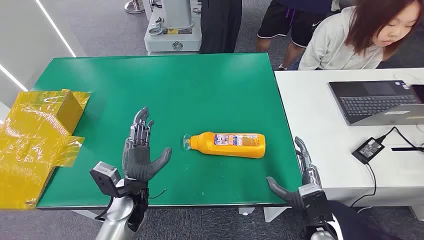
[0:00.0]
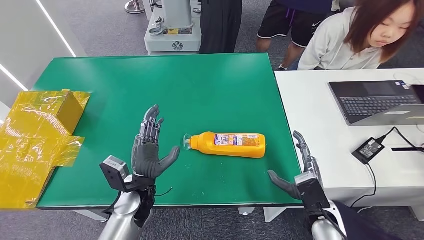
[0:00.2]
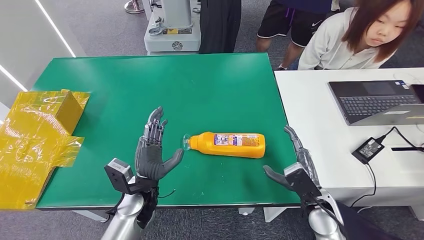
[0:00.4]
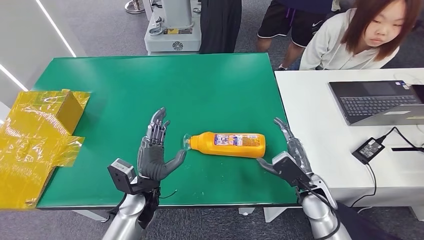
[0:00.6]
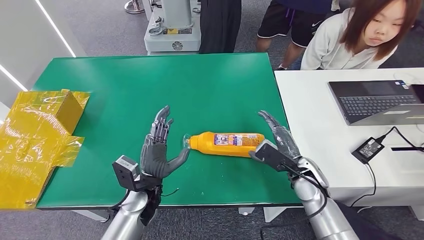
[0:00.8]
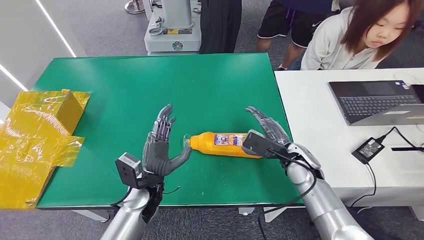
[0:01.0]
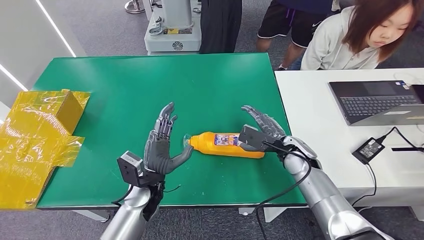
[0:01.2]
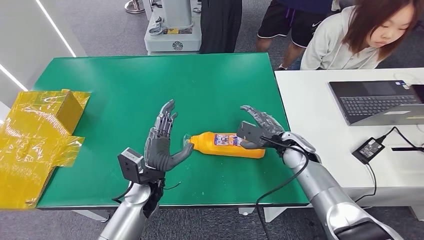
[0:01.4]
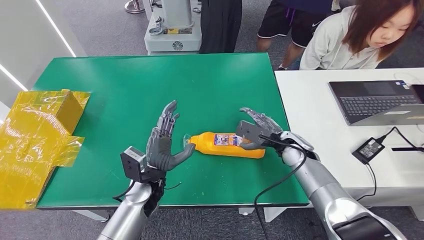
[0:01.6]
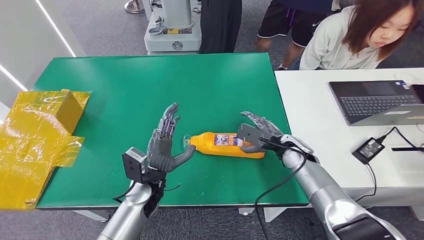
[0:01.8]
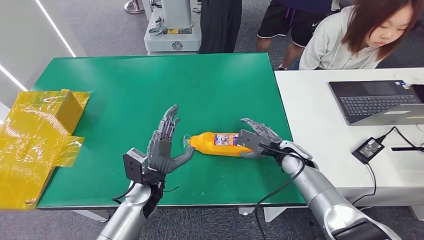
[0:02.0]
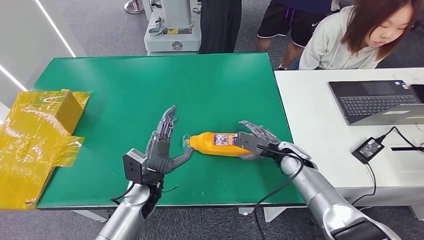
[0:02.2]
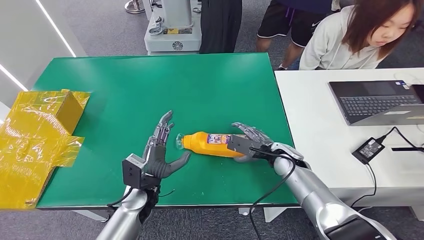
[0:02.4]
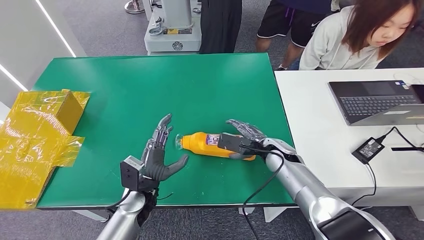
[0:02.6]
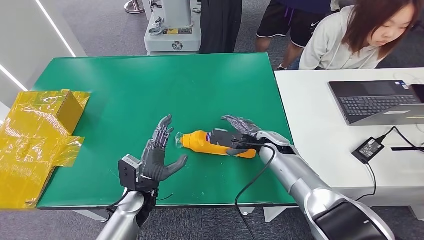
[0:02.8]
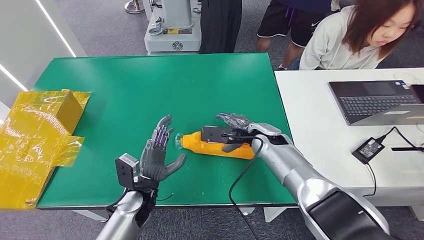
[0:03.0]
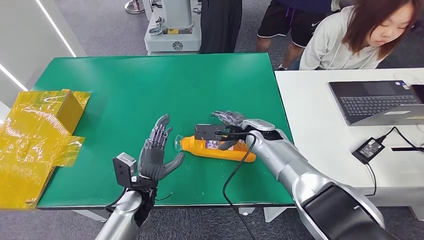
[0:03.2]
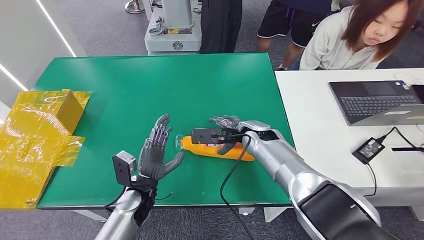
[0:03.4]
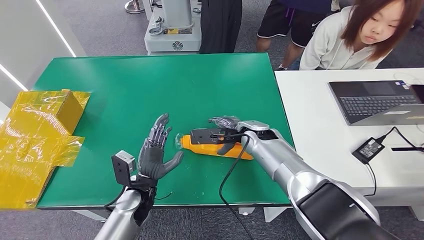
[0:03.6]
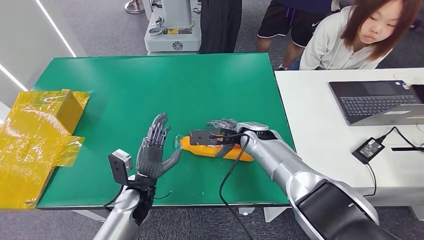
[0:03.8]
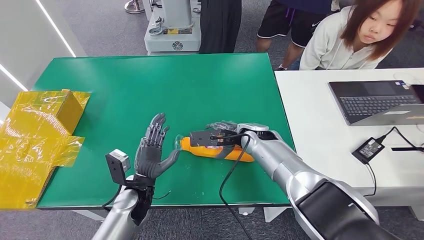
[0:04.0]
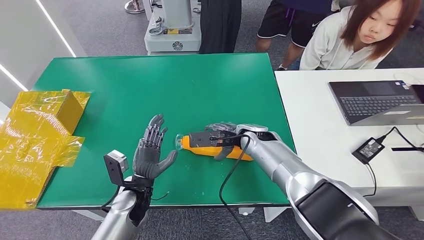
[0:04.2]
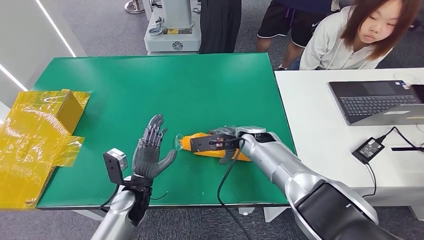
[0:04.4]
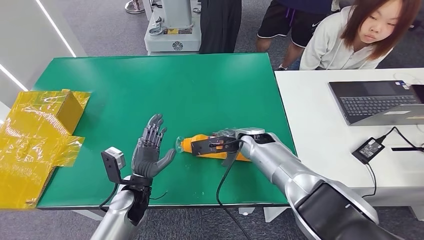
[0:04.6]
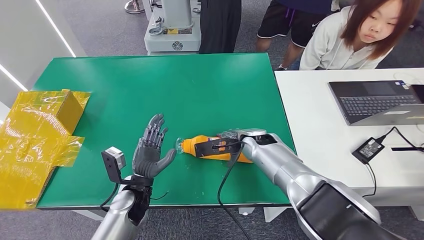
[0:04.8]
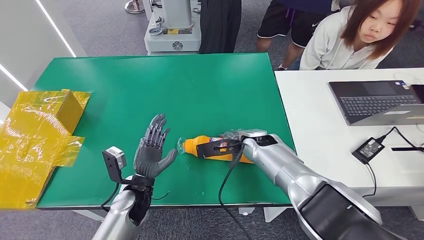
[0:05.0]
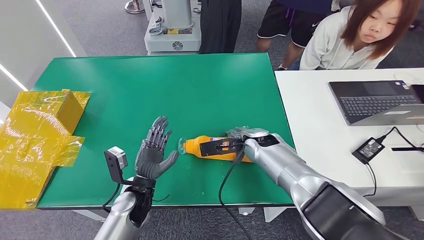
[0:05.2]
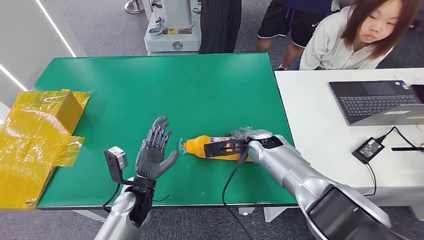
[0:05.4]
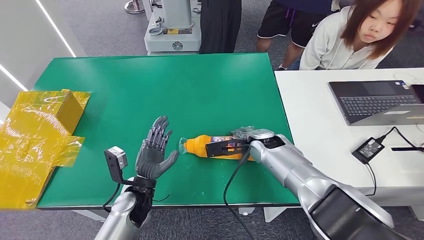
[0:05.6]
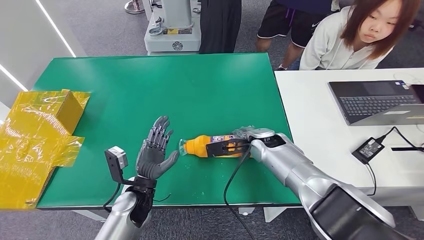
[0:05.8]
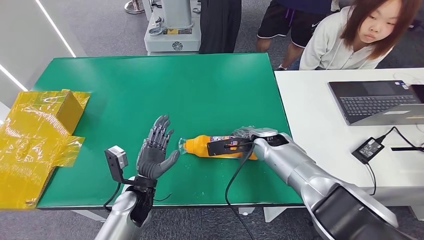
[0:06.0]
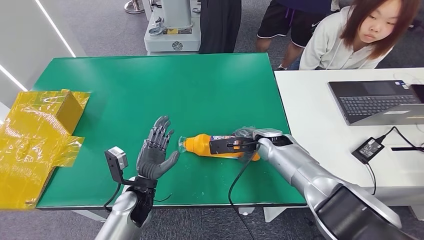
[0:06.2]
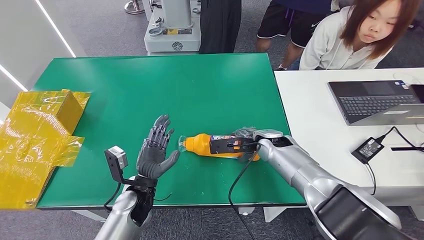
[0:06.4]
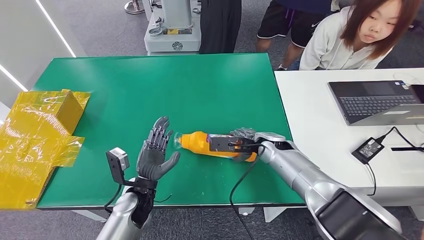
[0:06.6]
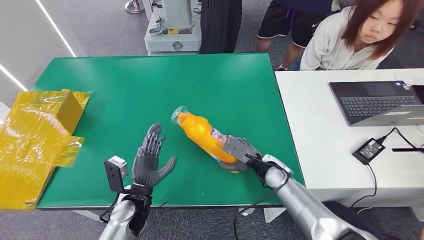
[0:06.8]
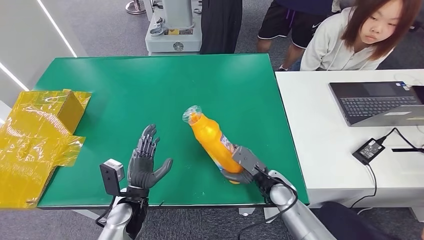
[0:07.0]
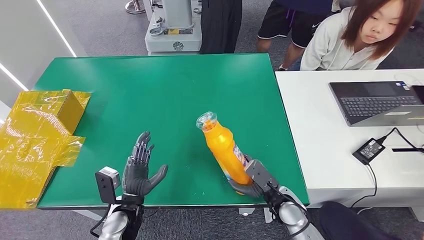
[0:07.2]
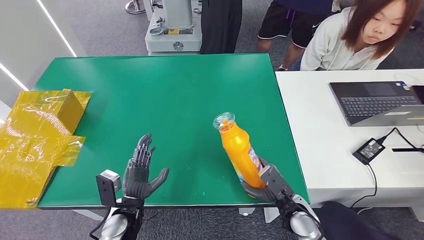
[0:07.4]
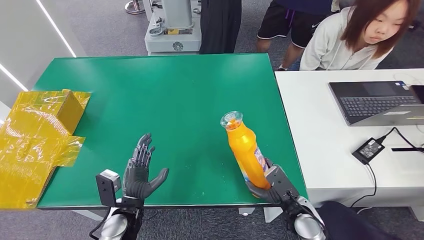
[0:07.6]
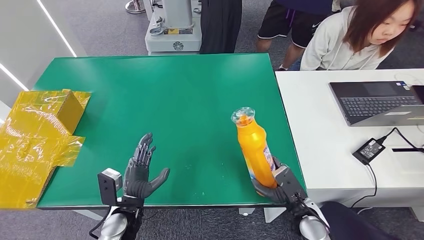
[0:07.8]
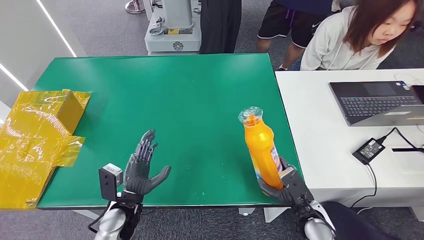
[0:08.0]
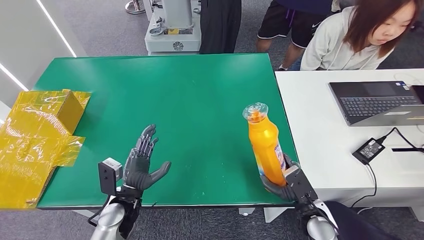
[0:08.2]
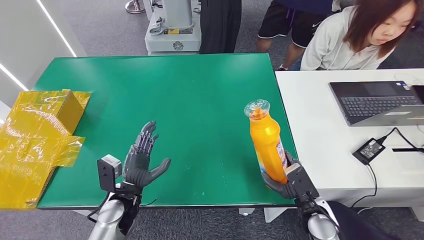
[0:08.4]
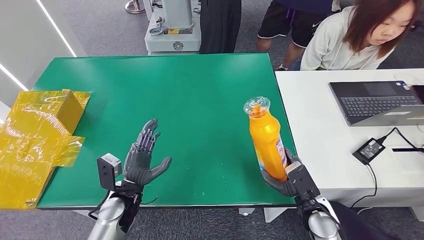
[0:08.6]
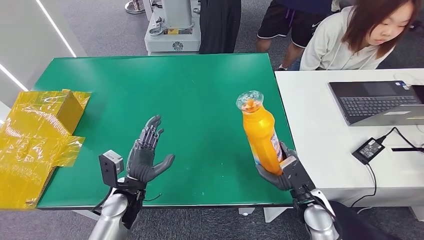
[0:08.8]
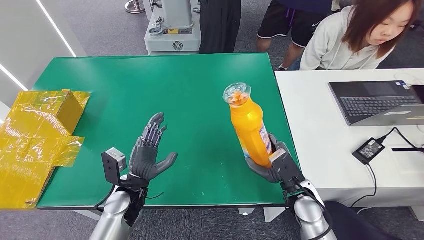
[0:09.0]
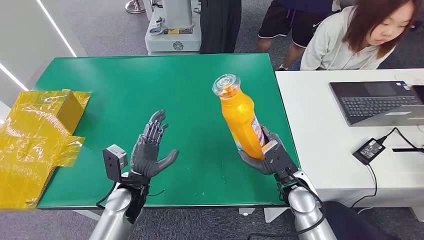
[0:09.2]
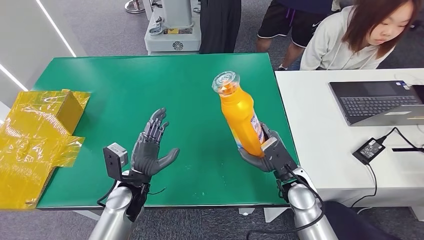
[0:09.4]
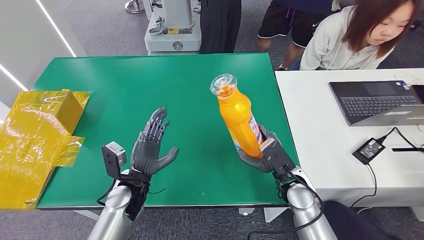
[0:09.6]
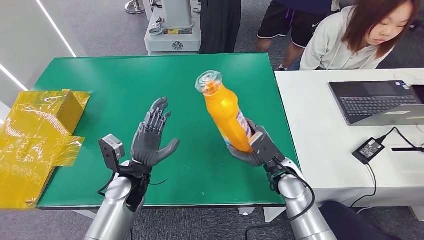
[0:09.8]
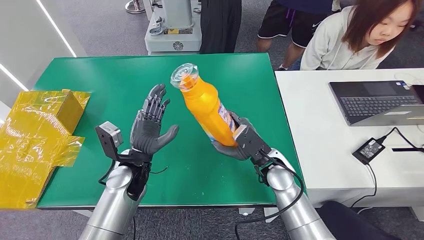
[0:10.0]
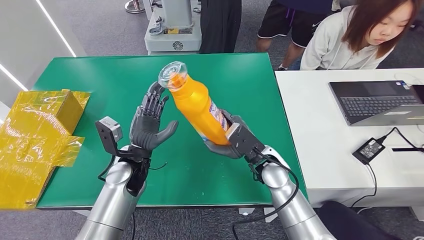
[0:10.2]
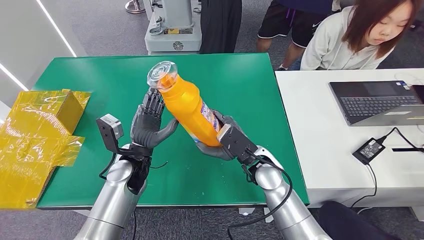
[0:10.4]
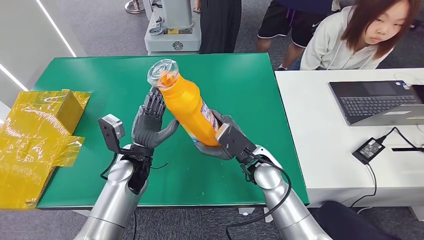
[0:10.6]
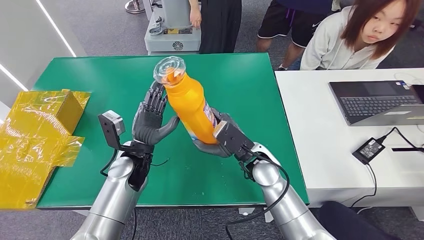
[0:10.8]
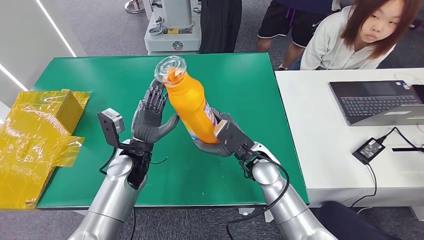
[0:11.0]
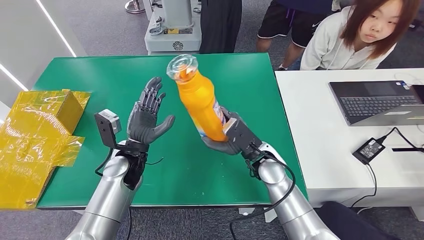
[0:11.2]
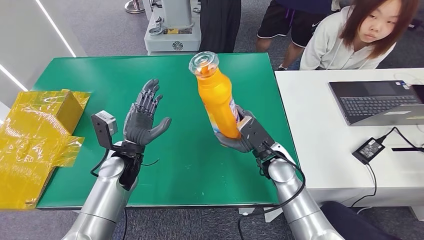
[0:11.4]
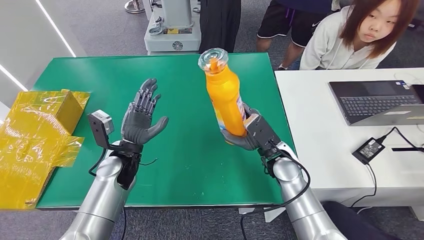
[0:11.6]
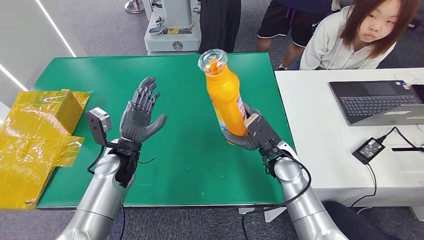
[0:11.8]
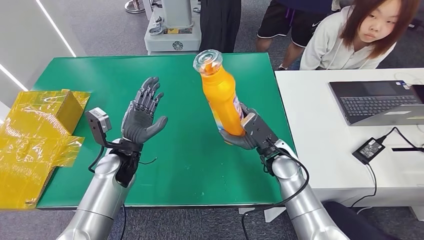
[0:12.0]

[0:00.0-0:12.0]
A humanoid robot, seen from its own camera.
Step, 0:00.0 to 0:08.2: Pick up the bottle from the table.
0:01.6 to 0:03.0: The right hand is displaced to the left by some 10 cm.
0:03.0 to 0:04.4: The hands make only small movements.
0:04.4 to 0:06.0: There are only small adjustments of the hands.
0:06.0 to 0:07.6: The right hand shifts about 20 cm backward and downward; the left hand ends up roughly 5 cm from where it was.
0:07.6 to 0:09.0: The right hand heads upward, covering roughly 5 cm, while the left hand shifts by some 5 cm.
0:09.0 to 0:10.4: The left hand travels forward and upward by roughly 10 cm; the right hand heads to the left, upward and forward, covering some 15 cm.

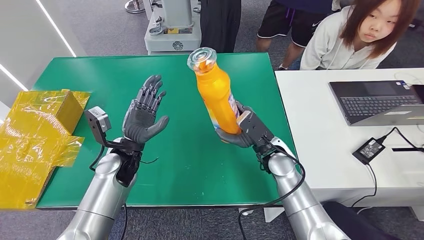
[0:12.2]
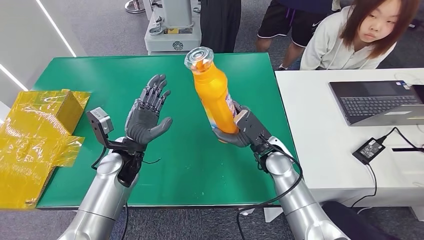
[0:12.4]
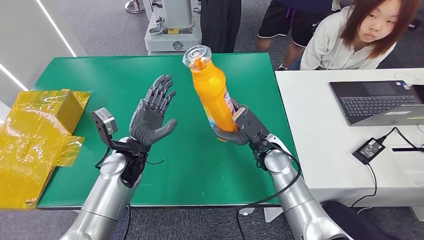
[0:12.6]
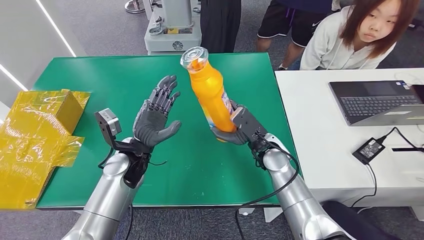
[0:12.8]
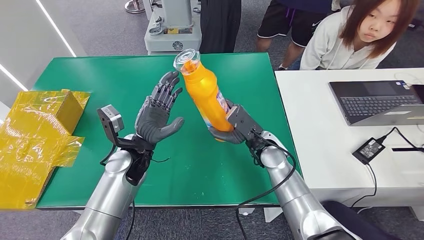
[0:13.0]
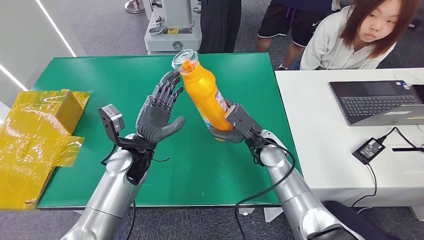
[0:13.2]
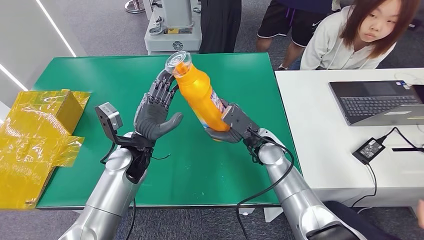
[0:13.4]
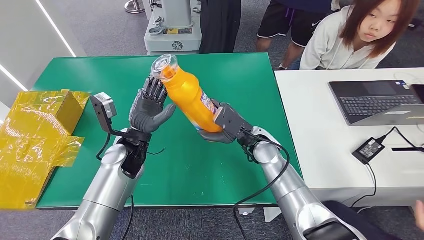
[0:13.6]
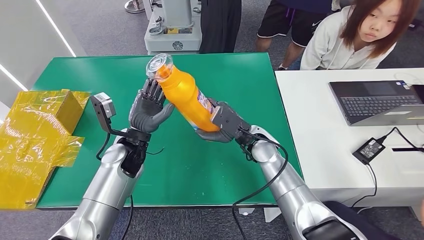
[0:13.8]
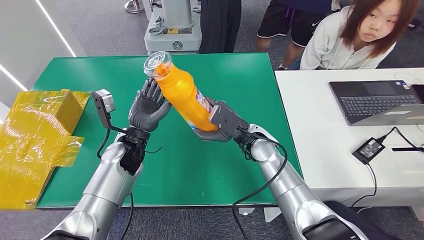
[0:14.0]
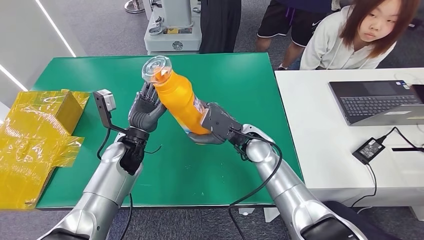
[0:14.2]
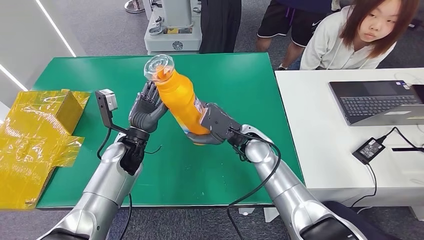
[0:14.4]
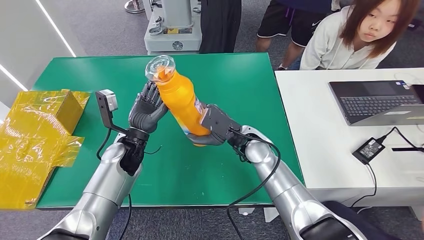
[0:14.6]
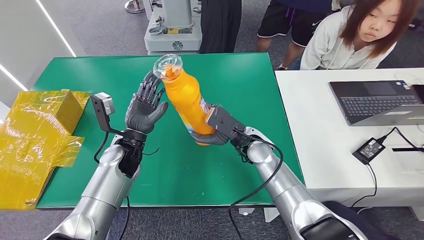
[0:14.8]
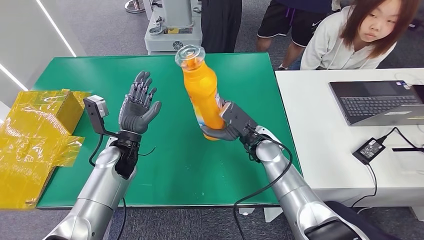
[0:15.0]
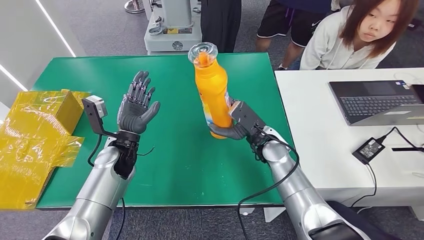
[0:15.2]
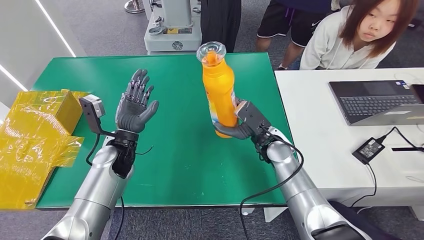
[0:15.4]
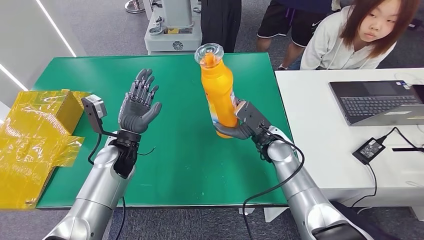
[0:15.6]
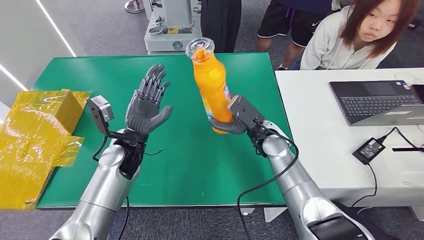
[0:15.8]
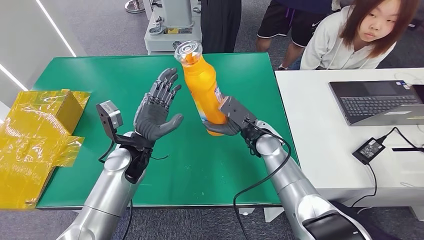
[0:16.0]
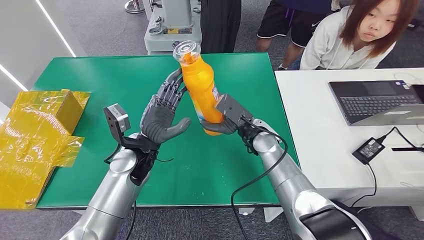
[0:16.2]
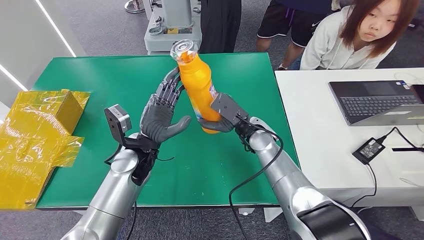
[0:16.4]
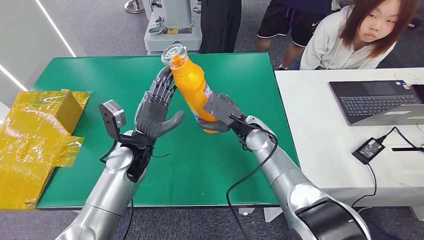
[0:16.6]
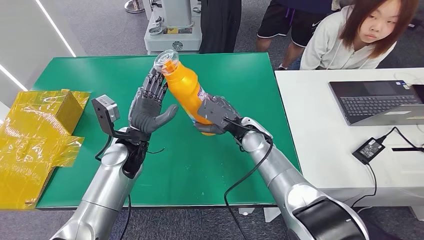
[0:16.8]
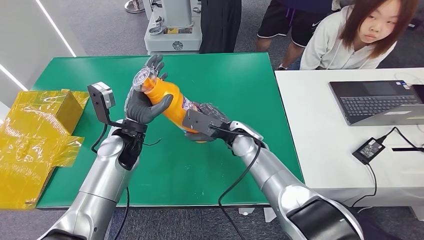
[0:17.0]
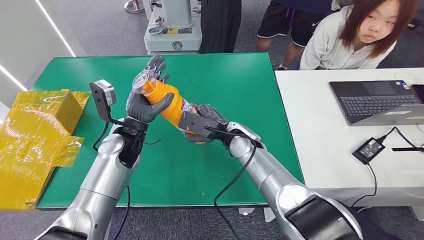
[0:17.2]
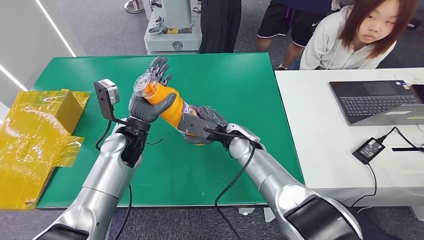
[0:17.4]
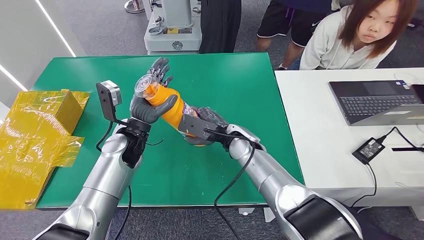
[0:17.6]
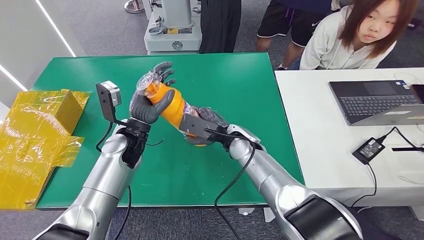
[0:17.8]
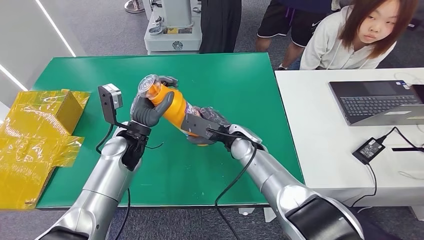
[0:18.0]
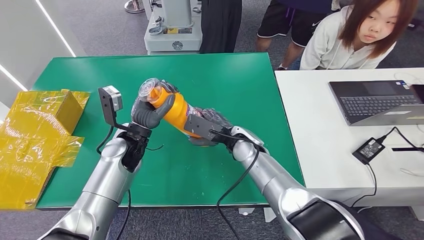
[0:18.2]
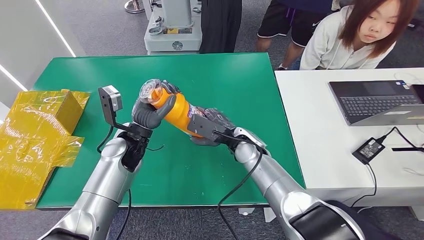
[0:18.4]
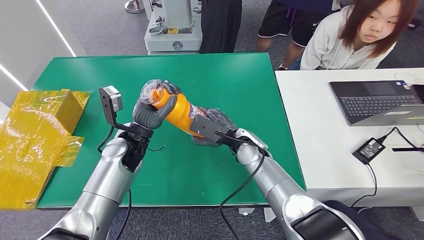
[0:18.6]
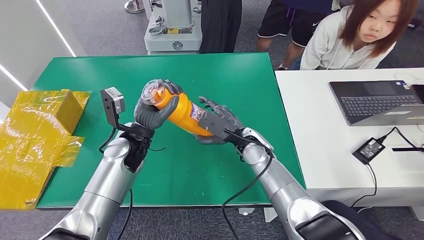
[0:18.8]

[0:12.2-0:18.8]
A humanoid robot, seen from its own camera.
0:12.2 to 0:13.8: The right hand shifts by approximately 5 cm.
0:13.8 to 0:15.4: The hands make only small movements.
0:15.4 to 0:17.2: The left hand shifts by some 5 cm. Meanwhile the right hand is displaced to the left by approximately 10 cm.
0:17.2 to 0:18.8: There are only small adjustments of the hands.
